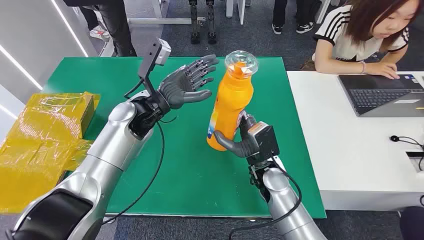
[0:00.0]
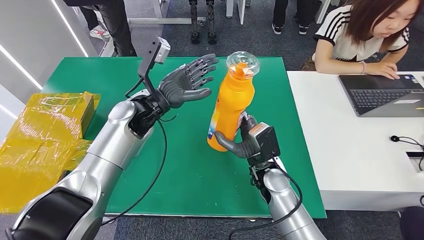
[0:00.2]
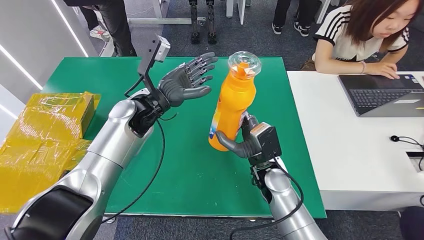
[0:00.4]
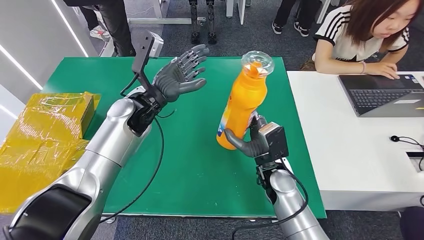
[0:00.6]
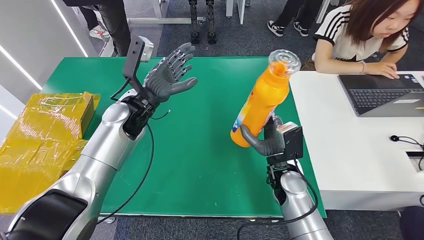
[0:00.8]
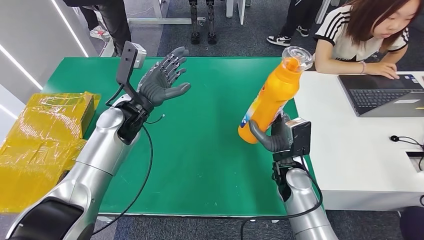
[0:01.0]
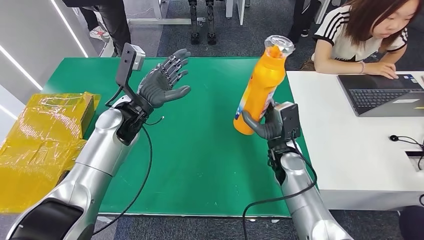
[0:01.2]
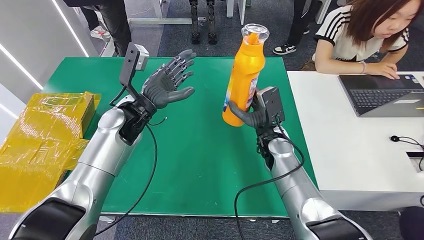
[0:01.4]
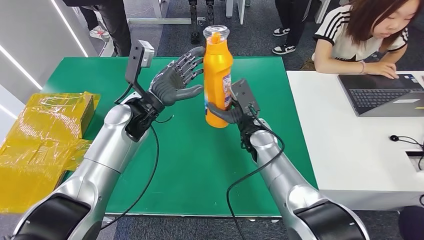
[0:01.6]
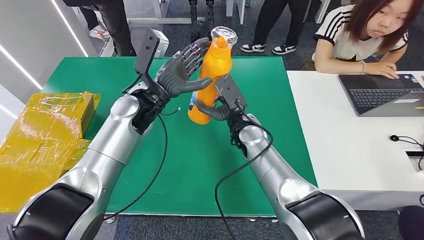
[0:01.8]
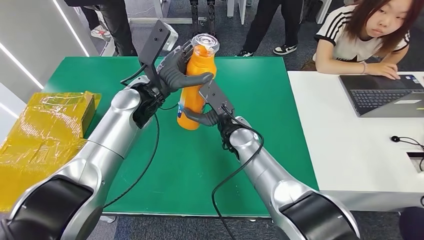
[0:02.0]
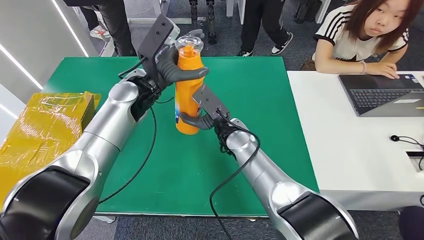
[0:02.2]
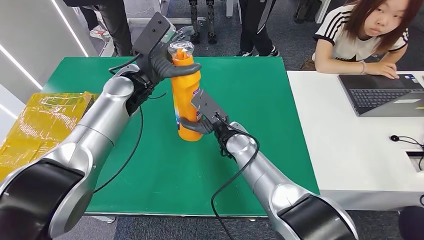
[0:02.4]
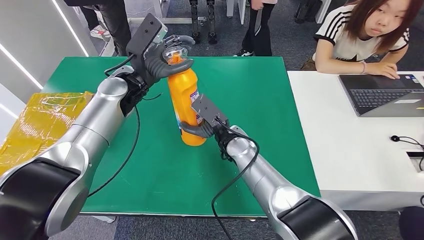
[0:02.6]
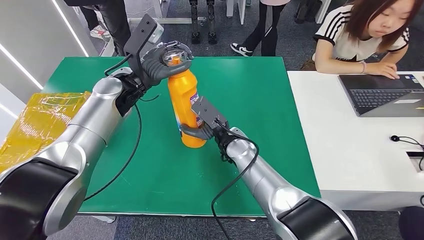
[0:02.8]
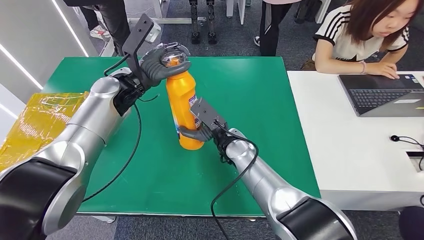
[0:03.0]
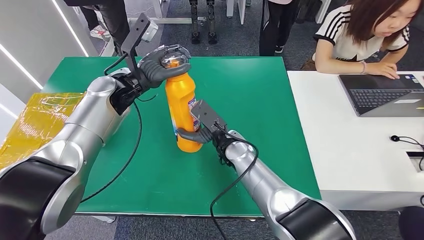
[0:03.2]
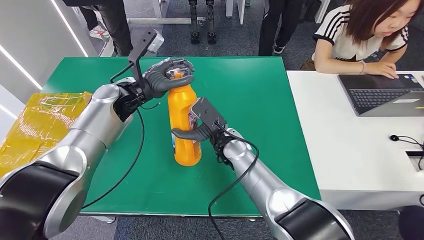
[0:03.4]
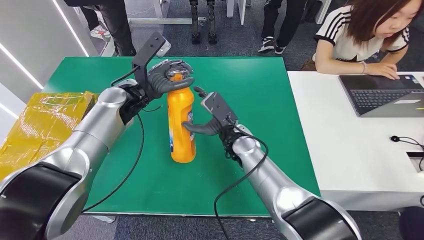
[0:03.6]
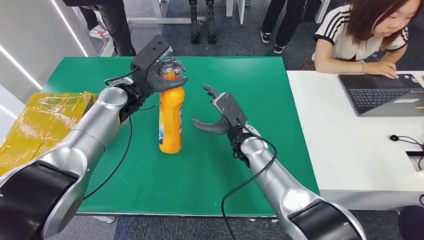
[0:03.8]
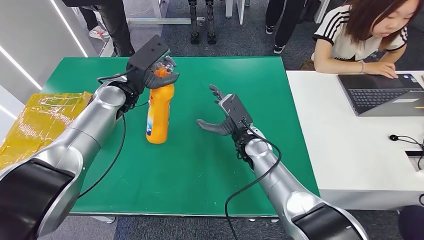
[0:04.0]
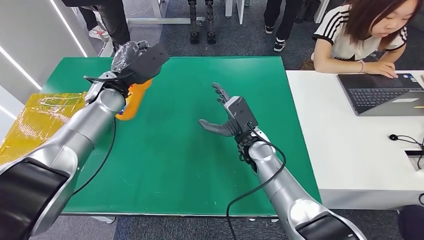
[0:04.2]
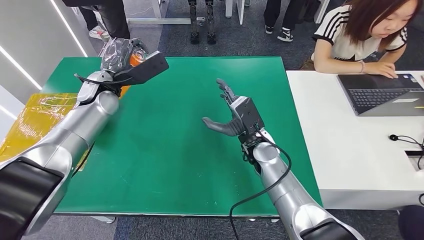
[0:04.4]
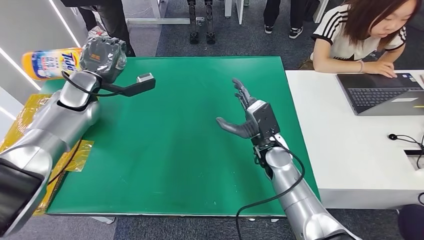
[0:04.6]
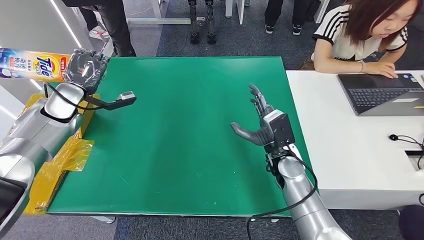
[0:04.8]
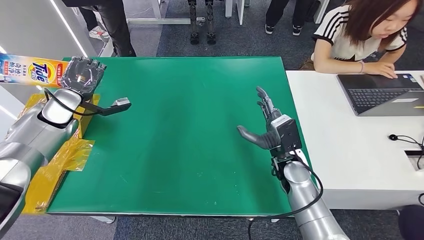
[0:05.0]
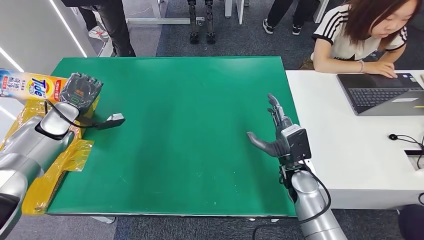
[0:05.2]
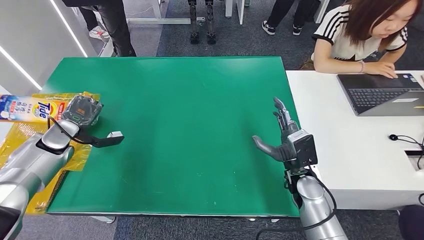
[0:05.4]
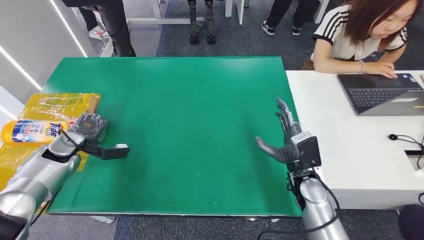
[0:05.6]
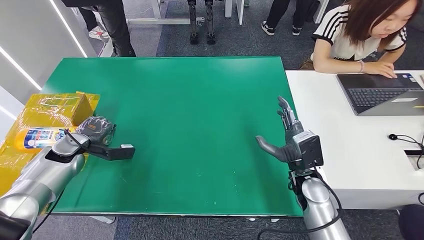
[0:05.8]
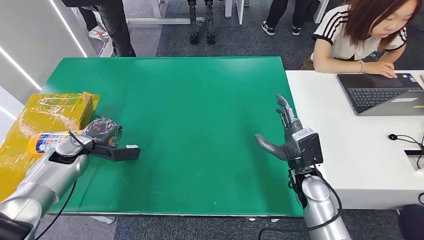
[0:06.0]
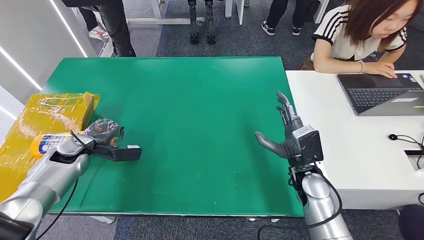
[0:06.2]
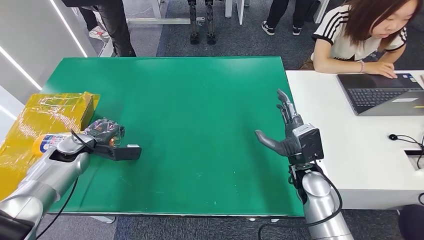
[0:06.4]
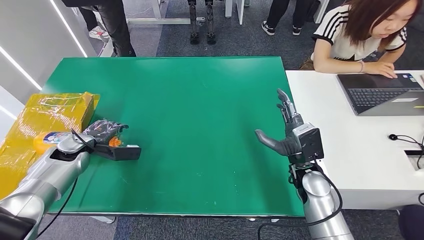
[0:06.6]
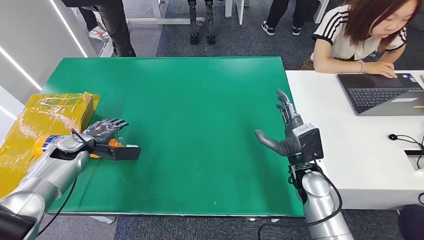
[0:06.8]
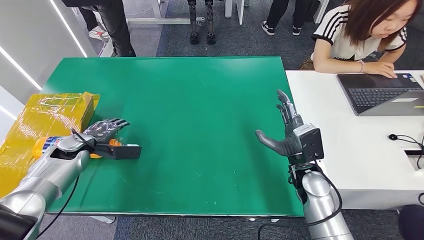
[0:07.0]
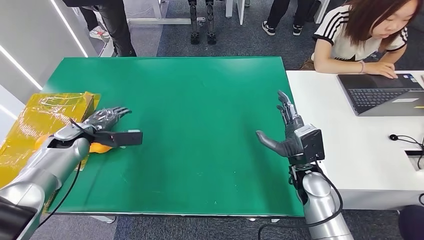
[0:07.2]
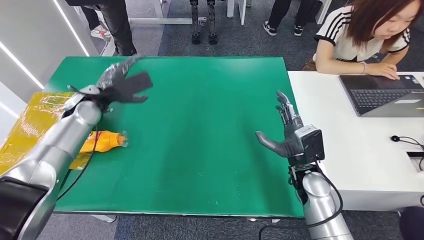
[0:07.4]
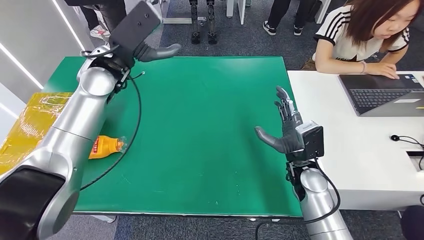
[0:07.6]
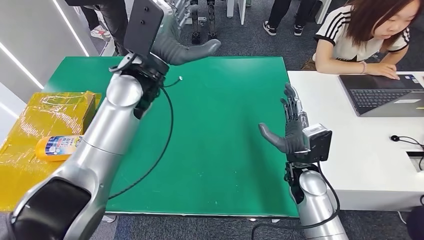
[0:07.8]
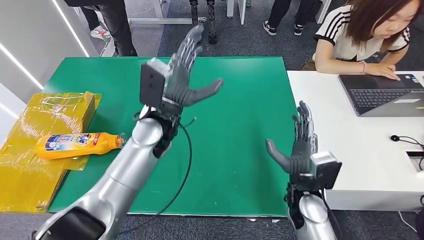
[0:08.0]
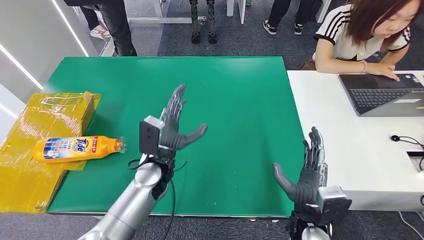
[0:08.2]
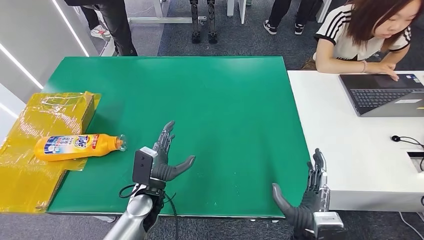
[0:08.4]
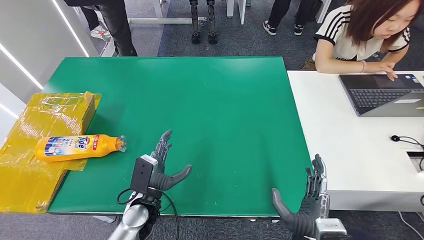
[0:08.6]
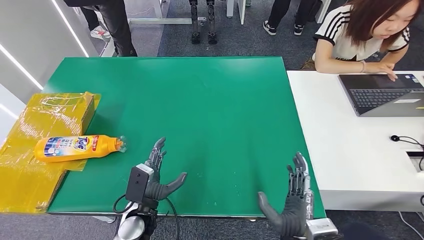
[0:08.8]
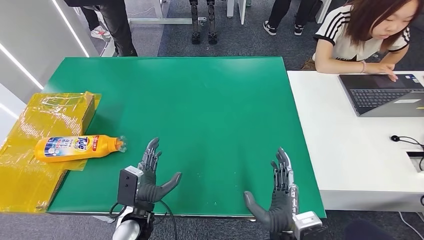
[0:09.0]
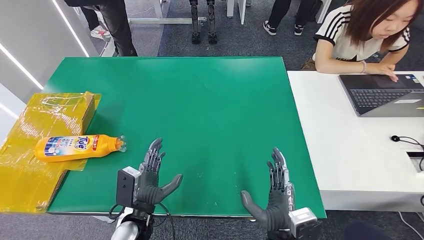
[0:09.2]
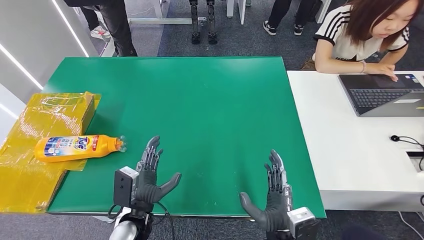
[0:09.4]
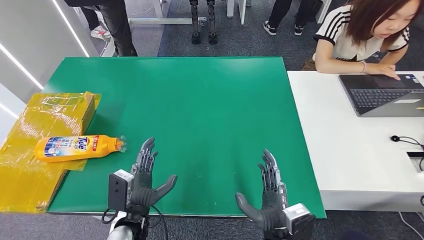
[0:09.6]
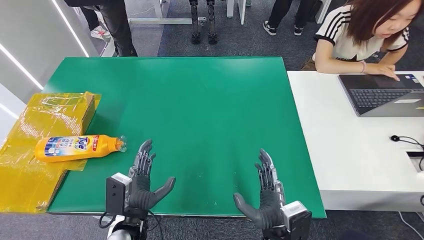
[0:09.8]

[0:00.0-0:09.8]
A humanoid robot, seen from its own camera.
Step, 0:00.0 to 0:02.6: Pick up the bottle from the table.
Step, 0:02.8 to 0:09.8: Turn the bottle to the front side.
0:08.4 to 0:09.8: The right hand is displaced to the left by about 5 cm. The left hand is displaced backward by approximately 10 cm.
